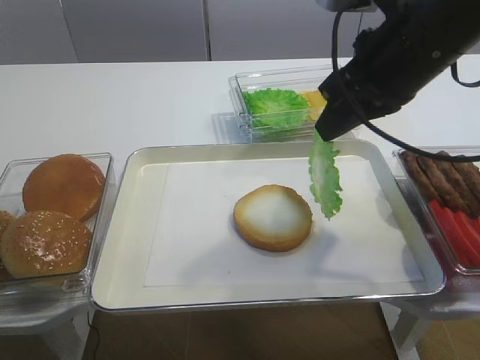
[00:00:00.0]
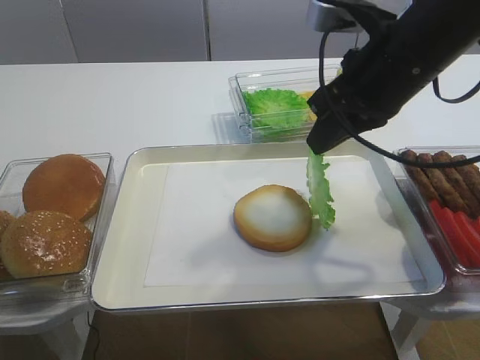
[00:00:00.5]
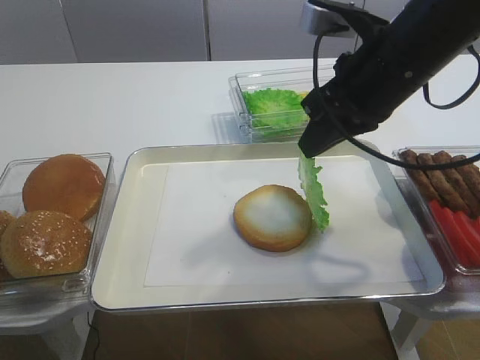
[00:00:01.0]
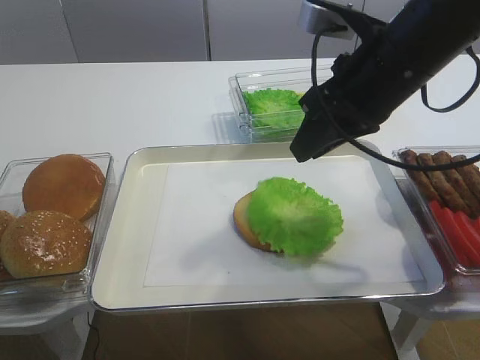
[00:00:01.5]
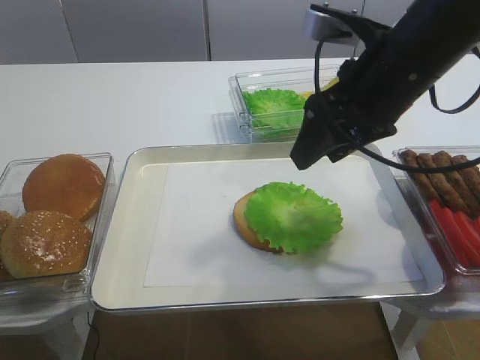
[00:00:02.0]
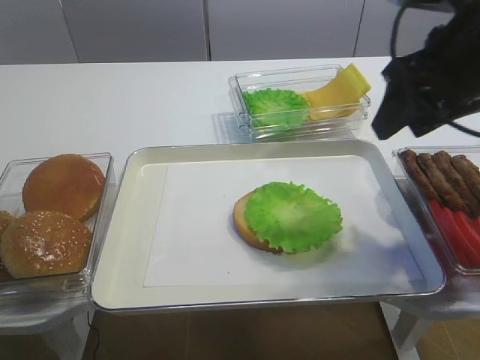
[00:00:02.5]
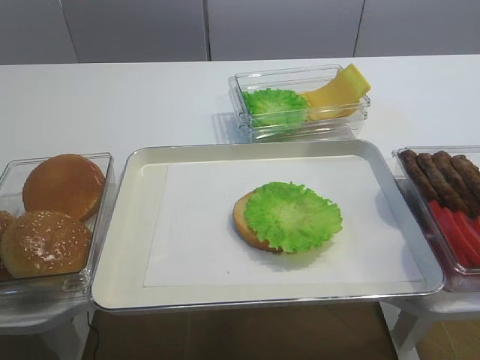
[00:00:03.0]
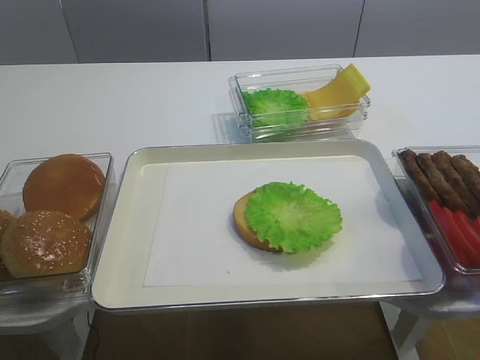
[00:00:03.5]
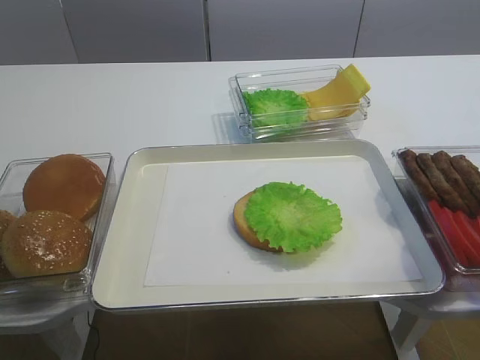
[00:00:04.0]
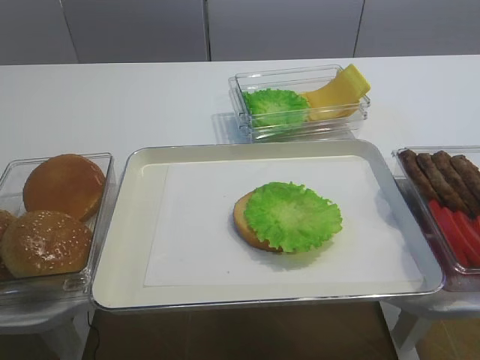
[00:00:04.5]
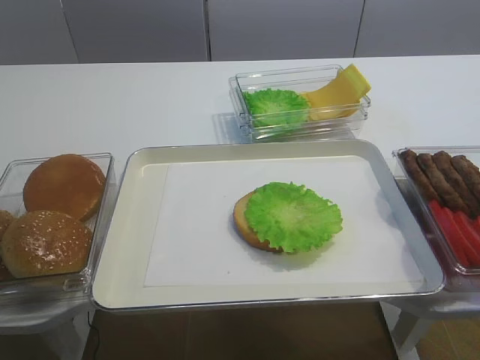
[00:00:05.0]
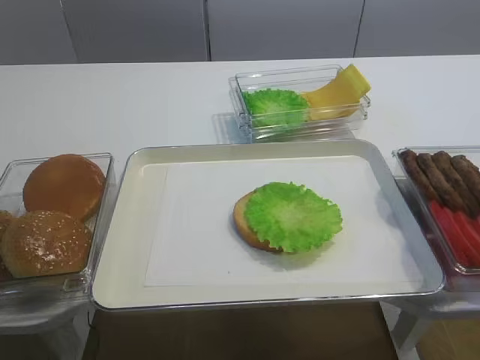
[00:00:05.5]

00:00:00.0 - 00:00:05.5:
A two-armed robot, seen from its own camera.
00:00:00.0 - 00:00:02.0: The right gripper opens up.
00:00:02.0 - 00:00:03.5: The right gripper shifts roughly 25 cm backward and to the right.

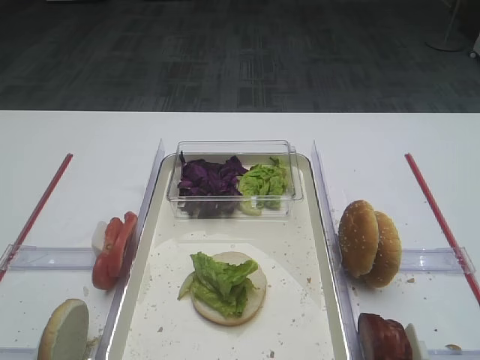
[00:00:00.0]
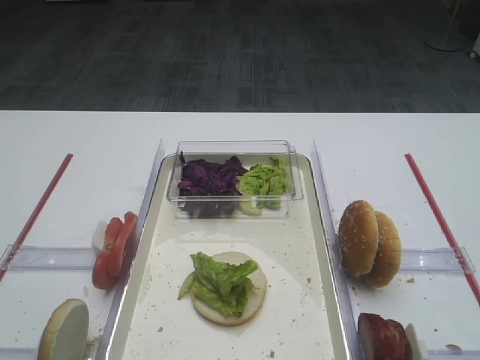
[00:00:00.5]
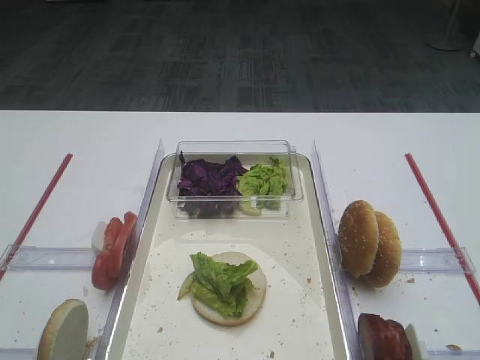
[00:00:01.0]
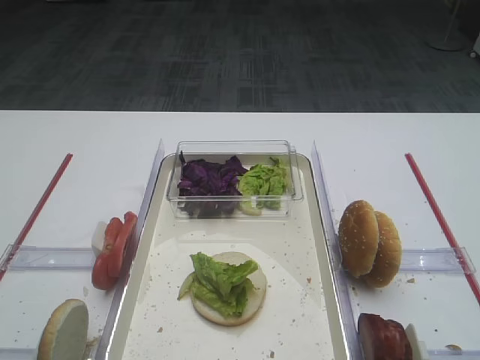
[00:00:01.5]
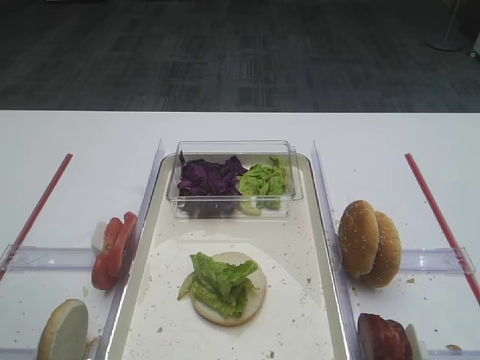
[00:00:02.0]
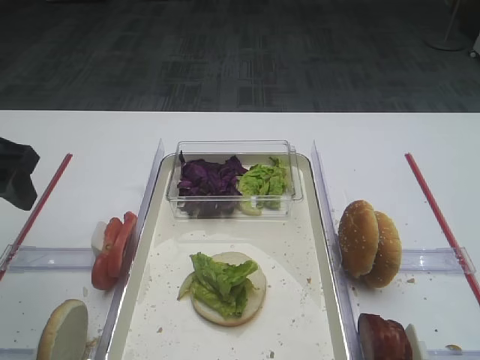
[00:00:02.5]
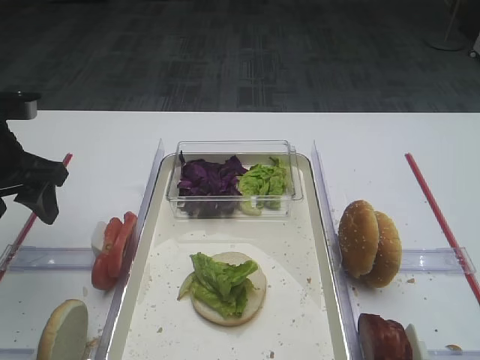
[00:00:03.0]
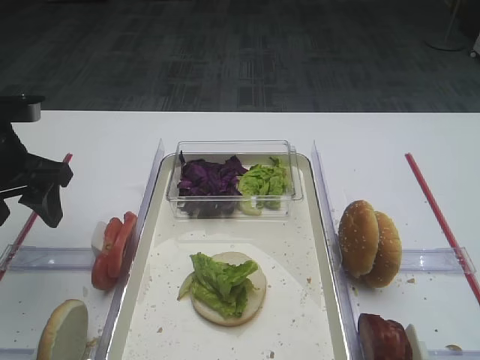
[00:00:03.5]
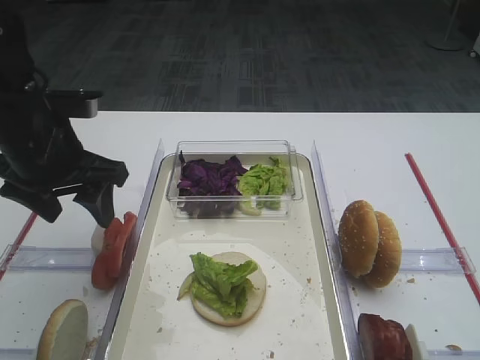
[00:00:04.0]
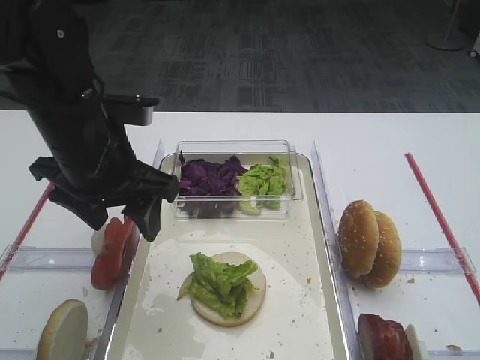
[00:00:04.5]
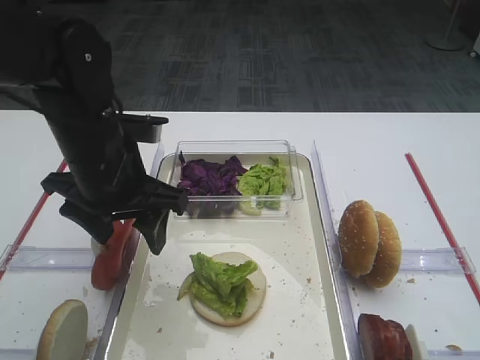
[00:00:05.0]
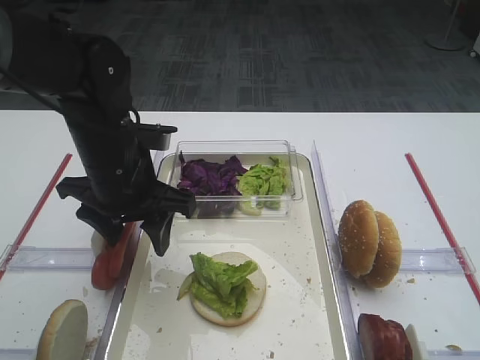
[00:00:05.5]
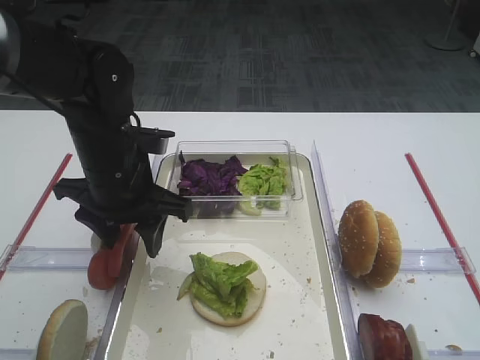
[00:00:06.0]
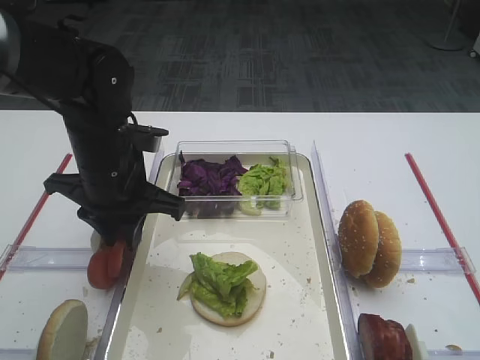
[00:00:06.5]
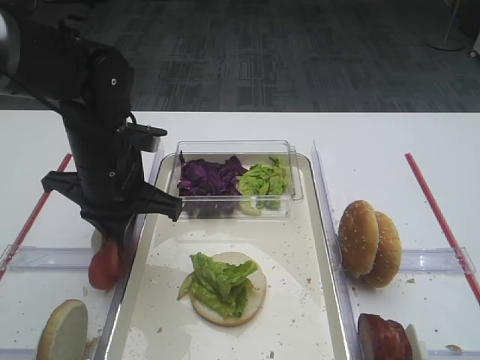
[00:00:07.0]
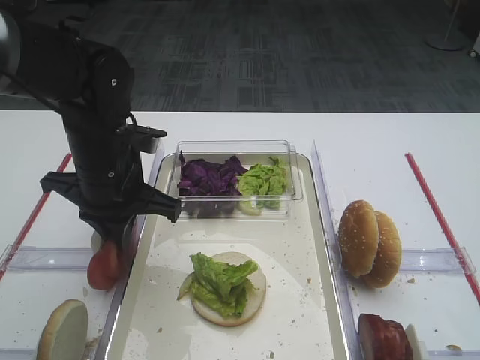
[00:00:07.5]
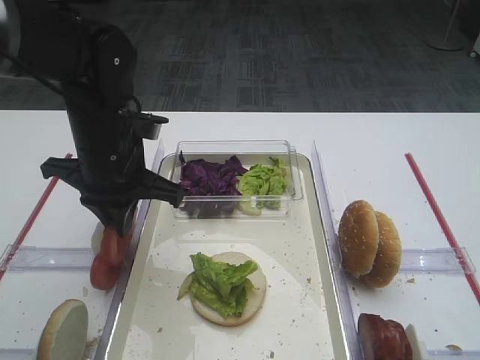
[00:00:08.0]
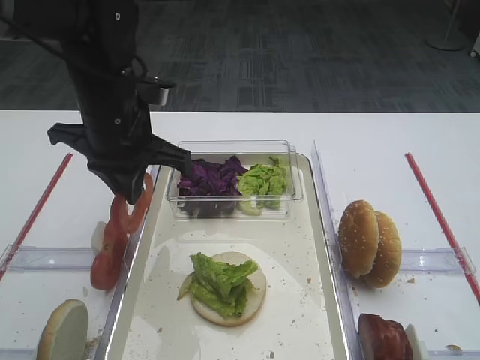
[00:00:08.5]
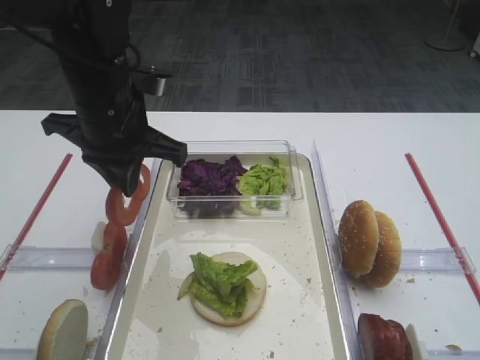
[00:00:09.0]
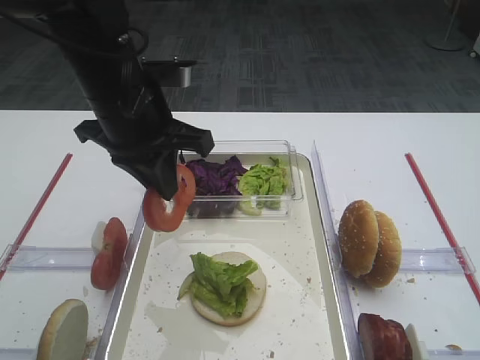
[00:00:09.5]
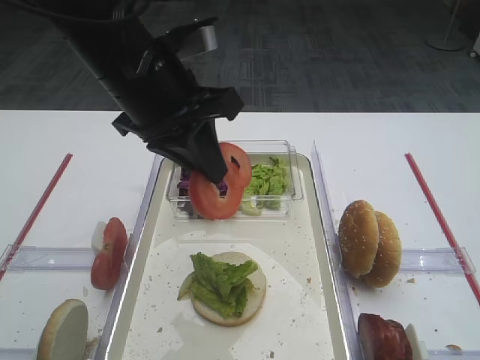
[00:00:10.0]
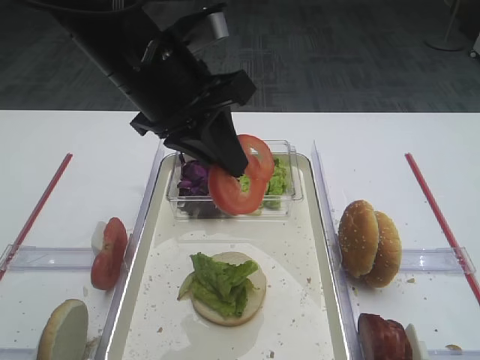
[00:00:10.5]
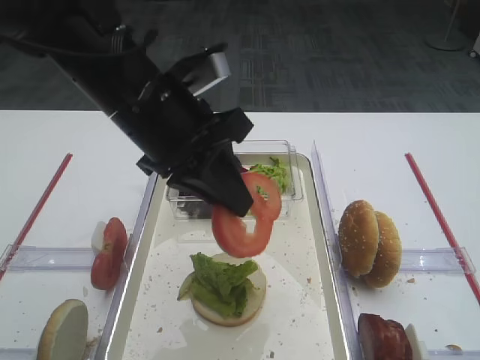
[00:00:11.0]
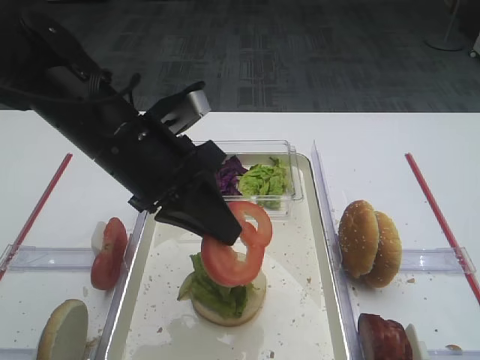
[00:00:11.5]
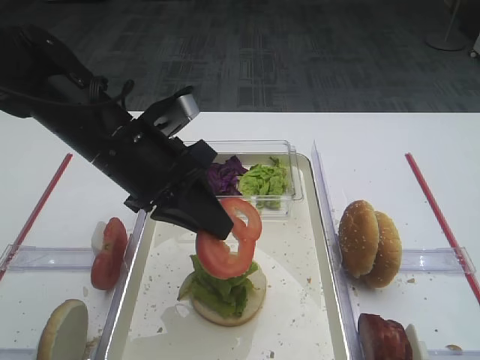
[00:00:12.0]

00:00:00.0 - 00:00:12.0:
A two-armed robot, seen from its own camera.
Step, 00:00:00.0 - 00:00:08.0: Pick up the tomato slice with the left gripper.
00:00:02.0 - 00:00:04.0: The left gripper heads forward and to the right, covering approximately 20 cm.
00:00:04.0 - 00:00:06.0: The left gripper shifts about 10 cm to the right.
00:00:06.0 - 00:00:08.0: The left gripper closes its fingers.
00:00:08.0 - 00:00:10.0: The left gripper goes roughly 10 cm upward.
00:00:10.0 - 00:00:12.0: The left gripper travels downward by roughly 5 cm.

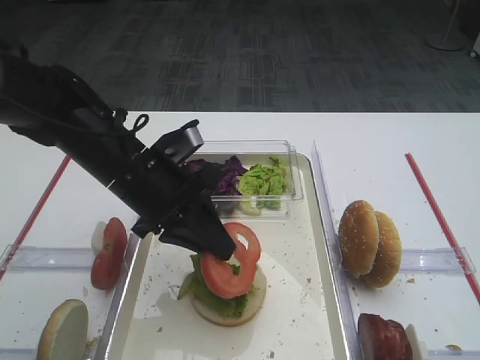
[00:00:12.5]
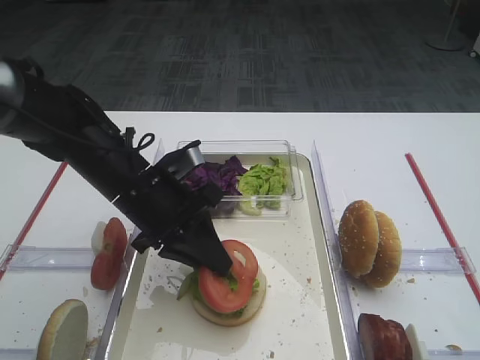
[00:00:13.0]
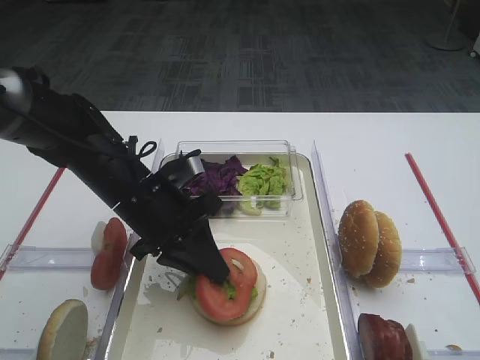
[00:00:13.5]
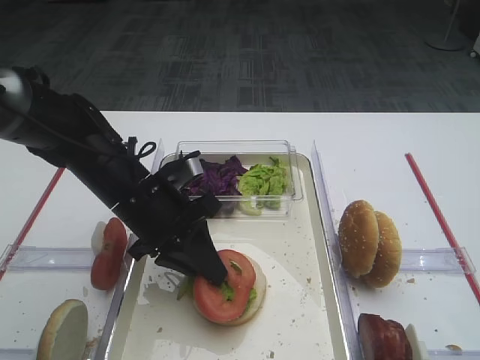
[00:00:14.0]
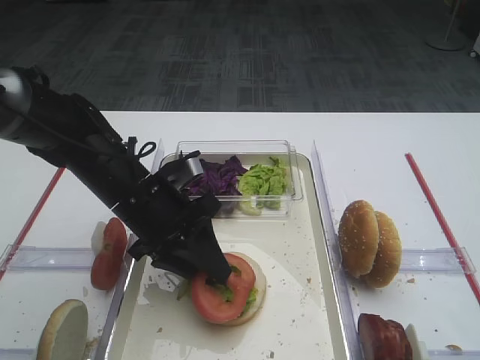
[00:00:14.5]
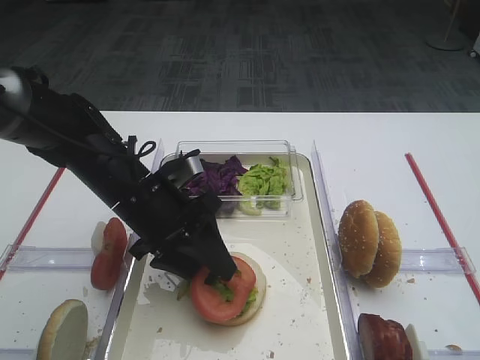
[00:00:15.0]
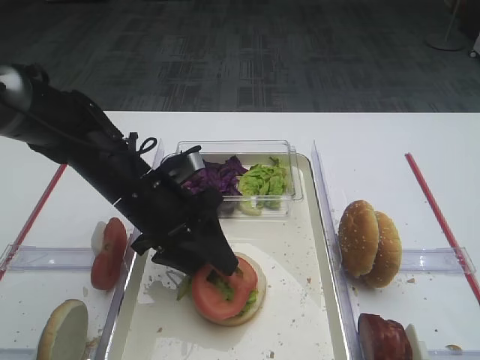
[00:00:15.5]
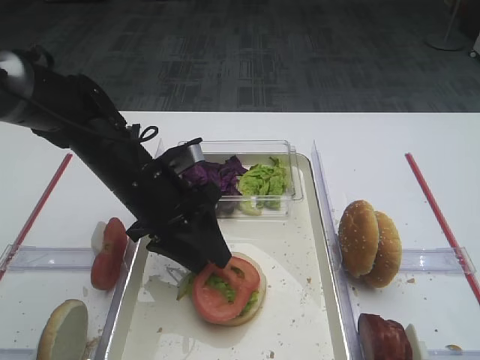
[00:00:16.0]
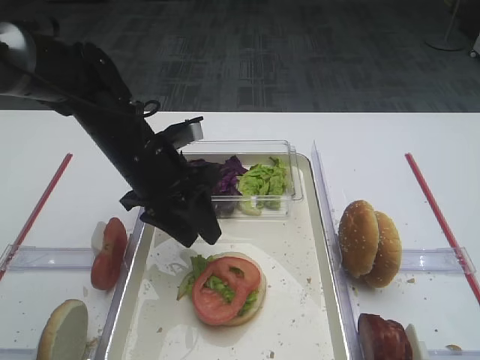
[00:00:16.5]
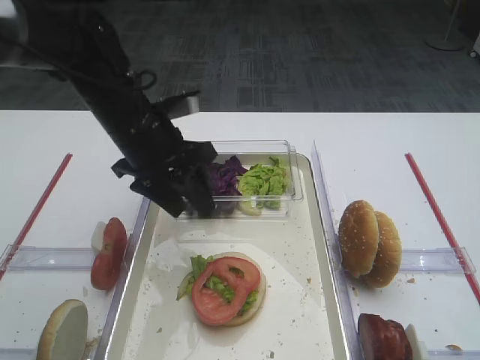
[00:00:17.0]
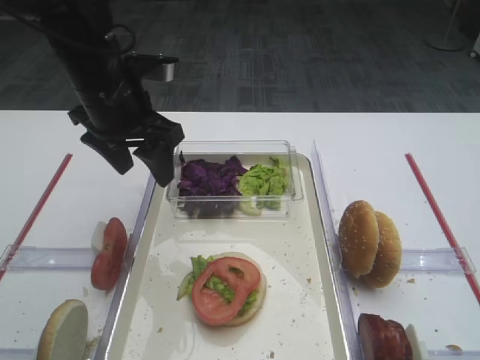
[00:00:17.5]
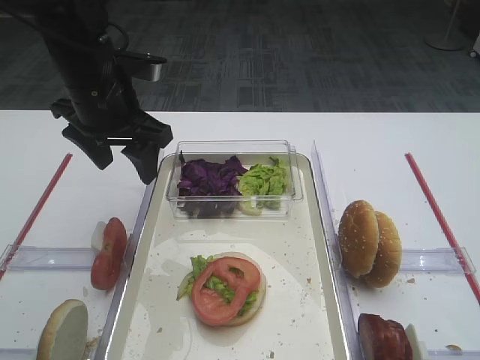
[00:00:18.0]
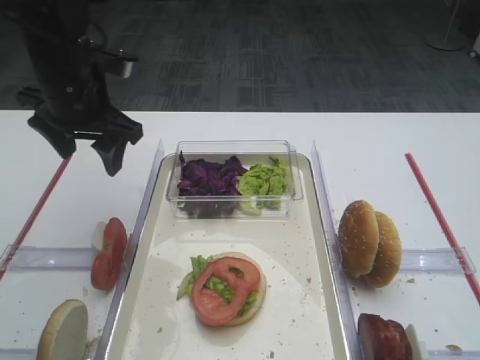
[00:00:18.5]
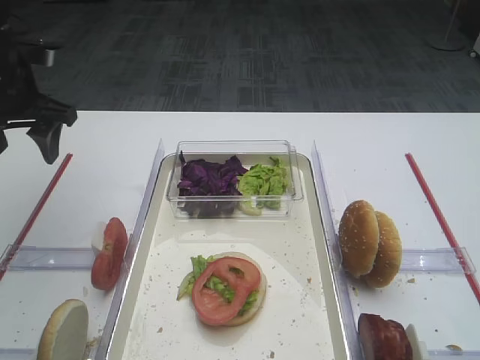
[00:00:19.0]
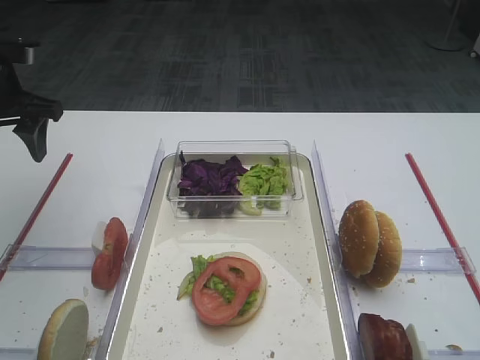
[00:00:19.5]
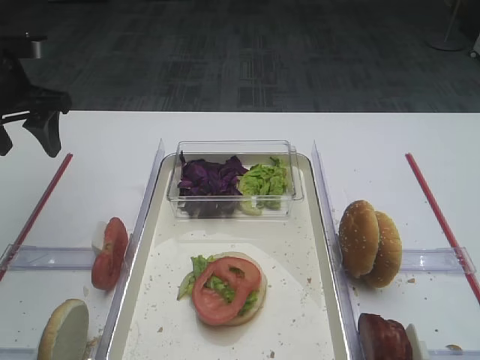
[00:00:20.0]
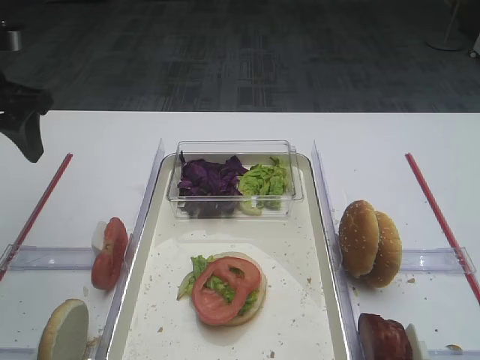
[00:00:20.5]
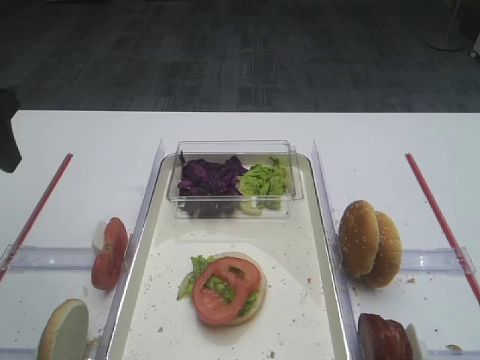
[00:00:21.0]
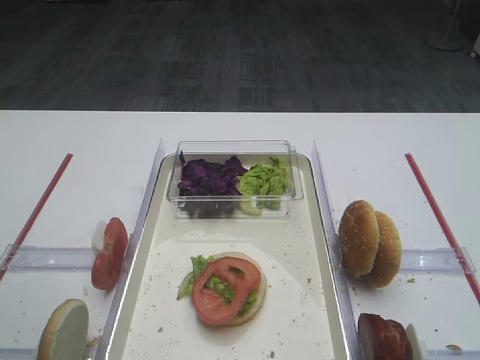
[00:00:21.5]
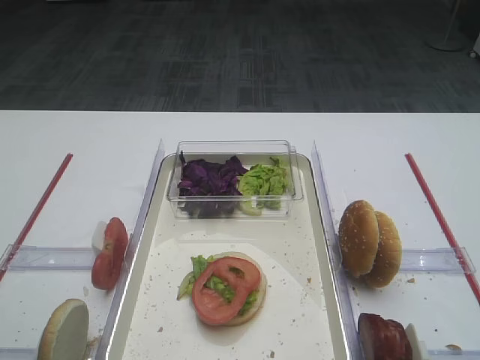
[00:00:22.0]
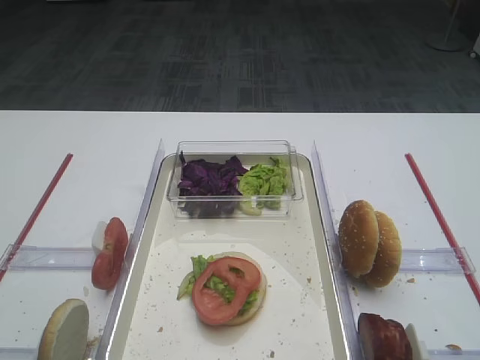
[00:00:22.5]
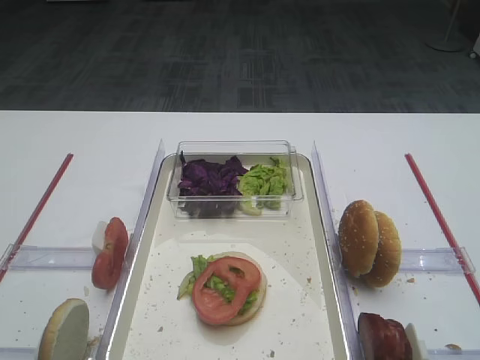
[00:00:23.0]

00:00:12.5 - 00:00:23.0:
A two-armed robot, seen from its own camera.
Step, 00:00:12.5 - 00:00:16.5: Place the tomato slice on the lettuce leaf with the left gripper.
00:00:12.5 - 00:00:14.5: The left gripper opens up.
00:00:14.5 - 00:00:16.5: The grippers move only a little.
00:00:16.5 - 00:00:19.0: The left gripper heads to the left and upward, covering approximately 20 cm, and opens.
00:00:19.0 - 00:00:21.0: The left gripper heads backward and upward, covering approximately 15 cm.
00:00:21.0 - 00:00:23.0: The left gripper moves backward, about 25 cm.
